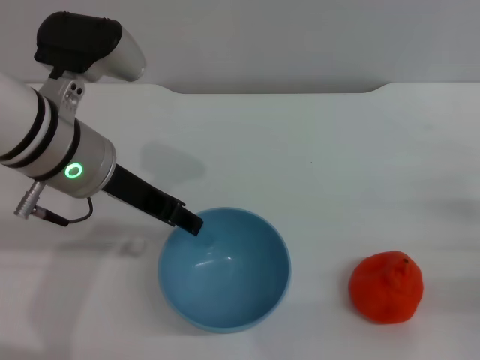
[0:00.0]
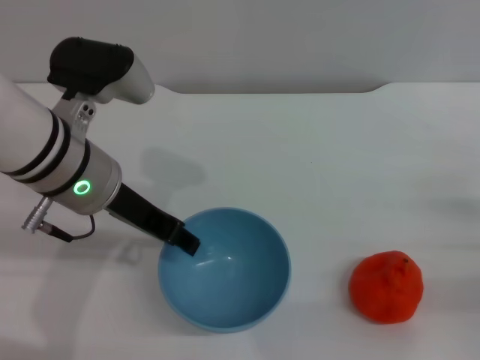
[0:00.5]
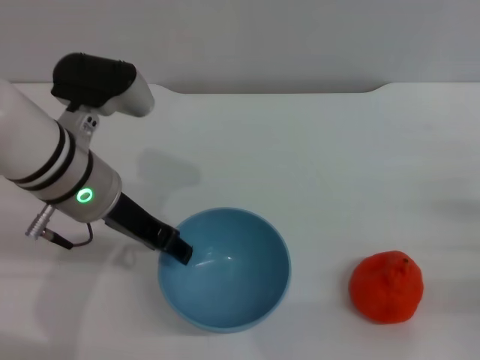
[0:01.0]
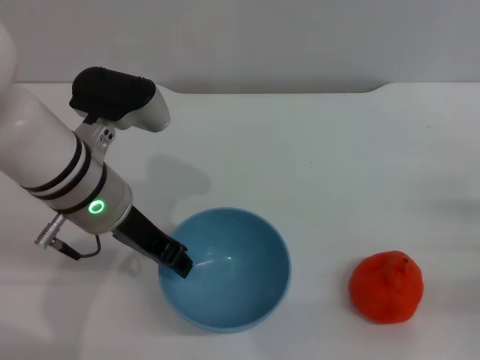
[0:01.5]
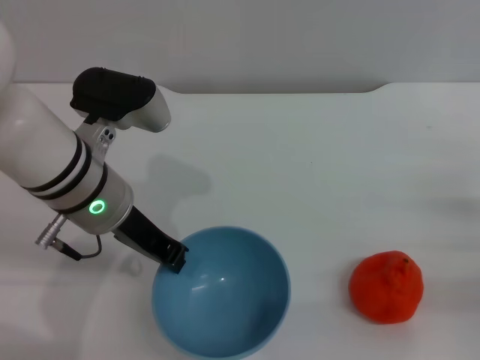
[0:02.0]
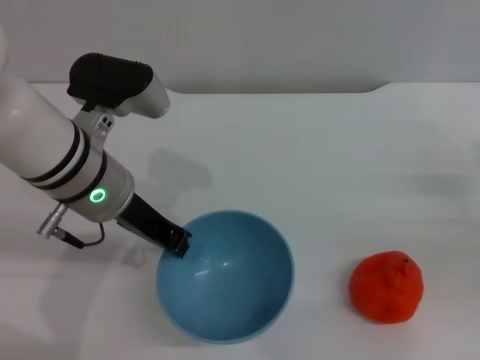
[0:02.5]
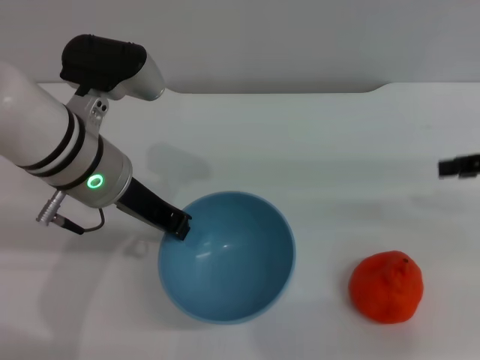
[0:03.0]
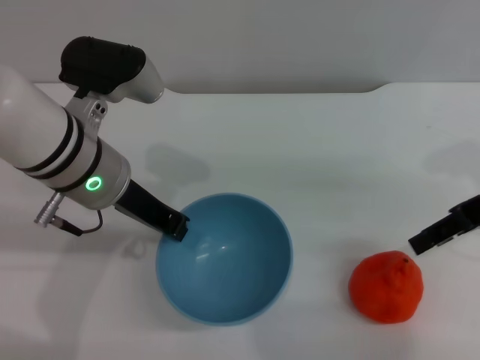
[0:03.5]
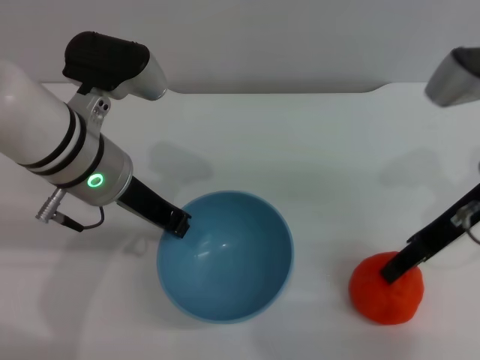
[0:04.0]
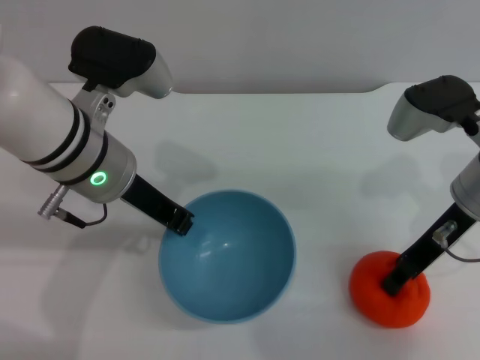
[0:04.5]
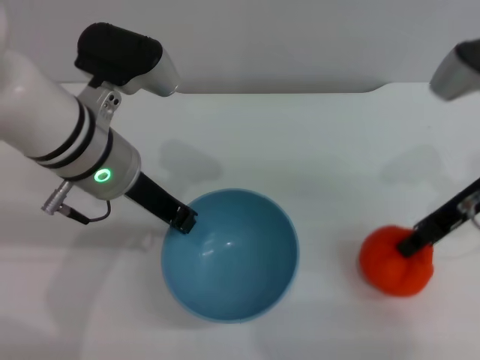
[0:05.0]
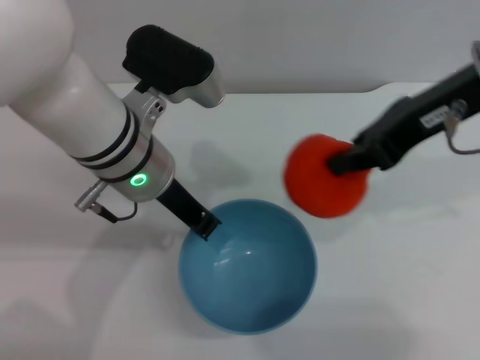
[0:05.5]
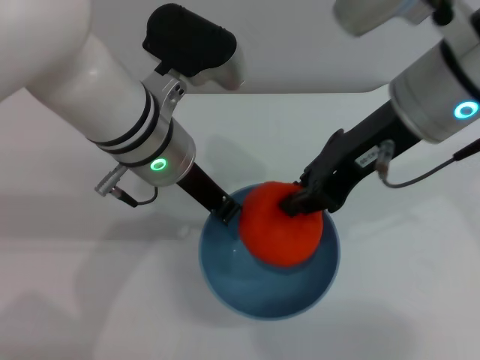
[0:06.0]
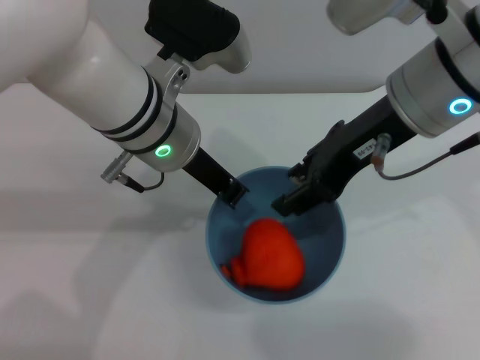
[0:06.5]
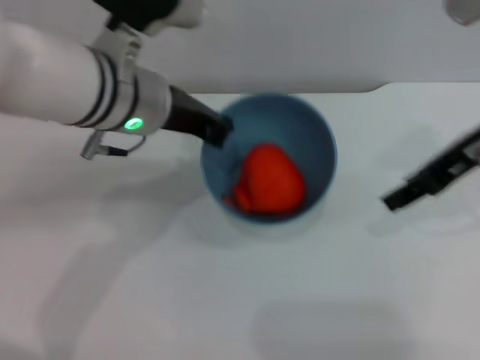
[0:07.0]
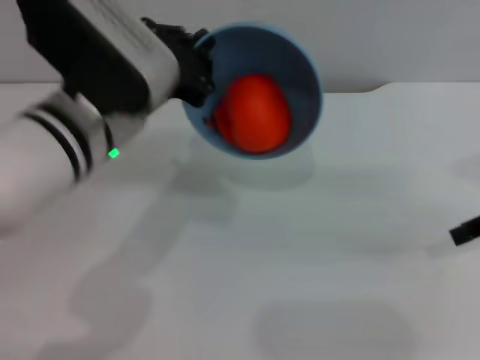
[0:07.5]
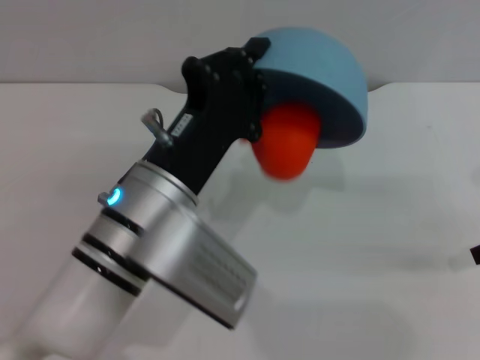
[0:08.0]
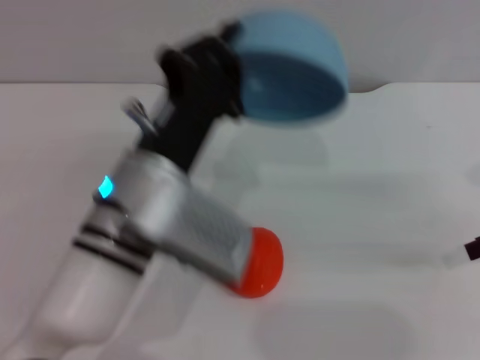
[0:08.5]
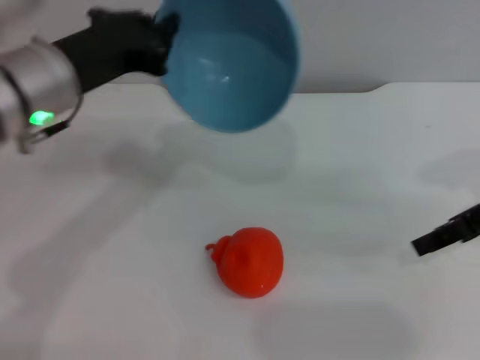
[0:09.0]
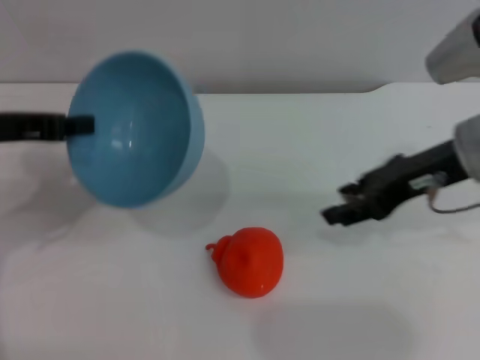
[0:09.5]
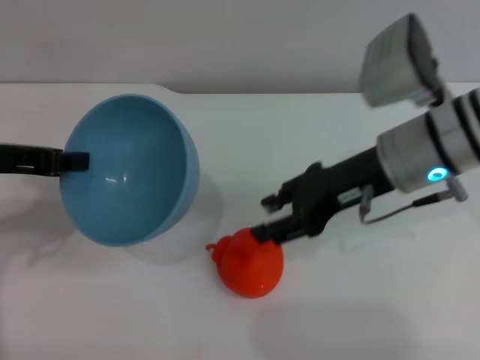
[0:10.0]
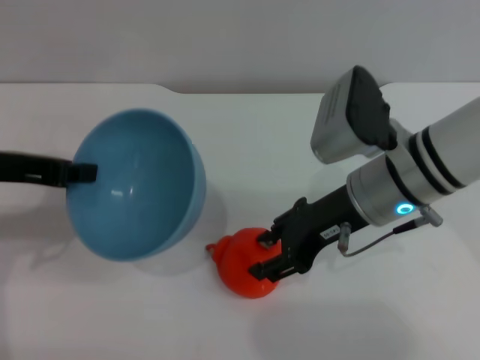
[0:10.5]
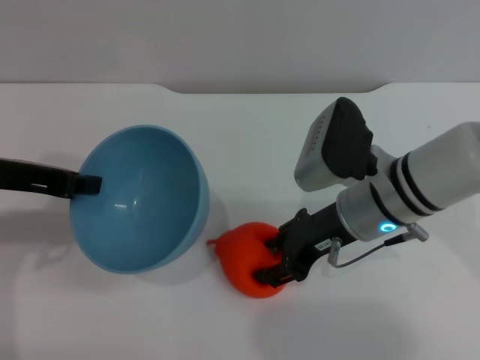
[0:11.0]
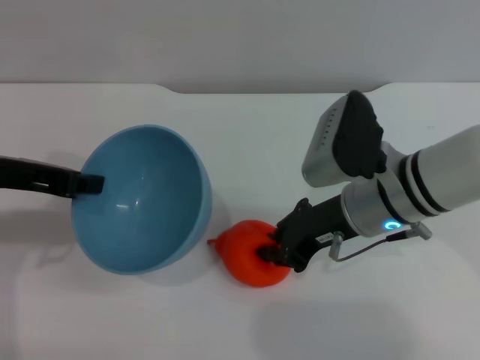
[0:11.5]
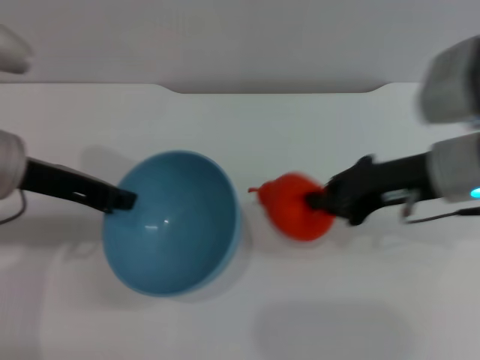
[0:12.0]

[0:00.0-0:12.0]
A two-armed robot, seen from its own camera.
Task of the whole recording: put the orange into the blue bowl and pour it out repeatedly.
Step, 0:00.0 to 0:03.0: Pick up the bowl with the left gripper.
Step, 0:03.5 to 0:05.0: Pick up the orange with the right gripper.
Step, 0:05.5 to 0:06.5: Place the orange into the bowl.
Step, 0:07.0 to 0:08.0: Pour the orange out of the bowl.
Step, 0:08.5 to 0:11.5: Pick up the orange with the right gripper.
0:00.0 to 0:02.0: The left gripper closes its fingers.
0:02.0 to 0:04.0: The right gripper travels upward, to the left and forward by some 20 cm.
0:04.0 to 0:06.0: The right gripper is displaced to the left and upward by approximately 15 cm, and closes. The left gripper travels to the right by approximately 5 cm.
0:06.0 to 0:08.0: The right gripper is displaced to the right by roughly 20 cm, and opens, while the left gripper is displaced backward and downward by approximately 10 cm.
0:08.0 to 0:10.0: Both grippers move to the left, about 20 cm.
0:10.0 to 0:12.0: The grippers both shift to the right by approximately 5 cm. The right gripper closes its fingers.

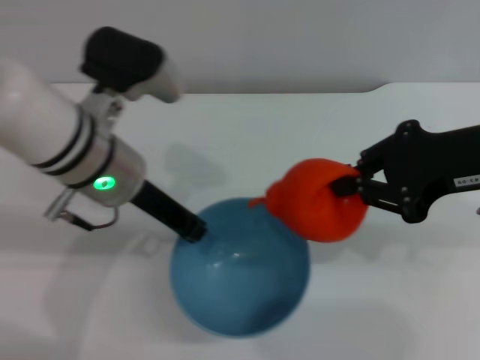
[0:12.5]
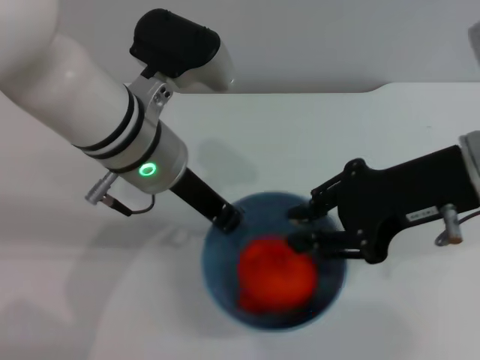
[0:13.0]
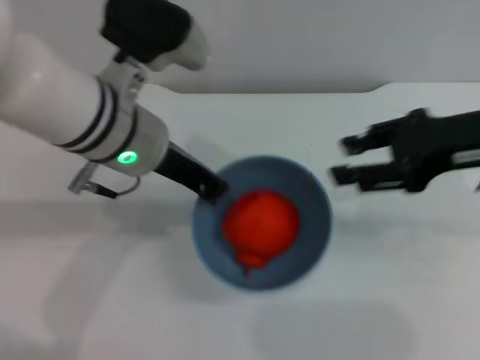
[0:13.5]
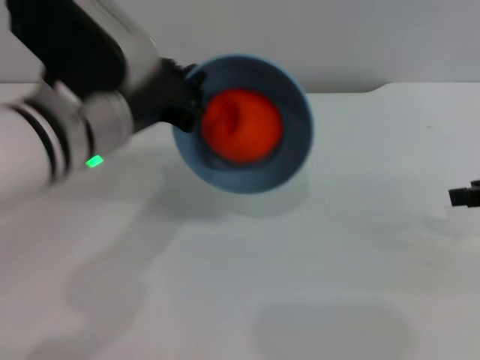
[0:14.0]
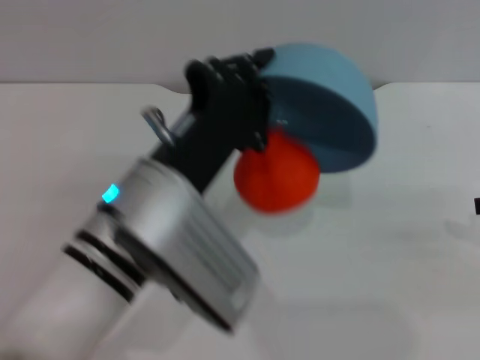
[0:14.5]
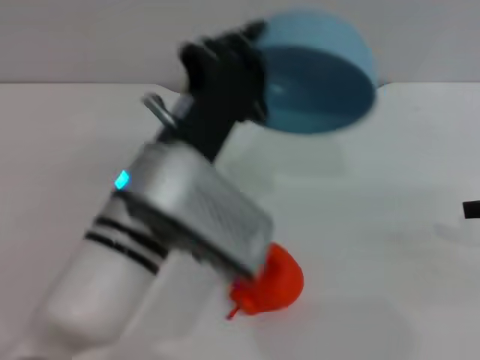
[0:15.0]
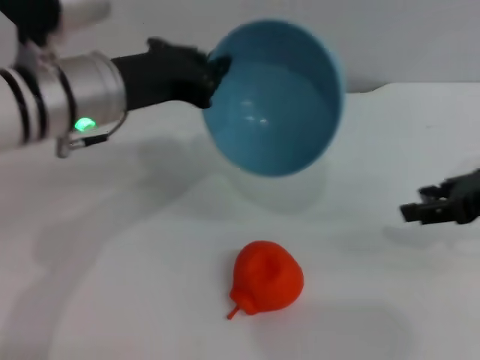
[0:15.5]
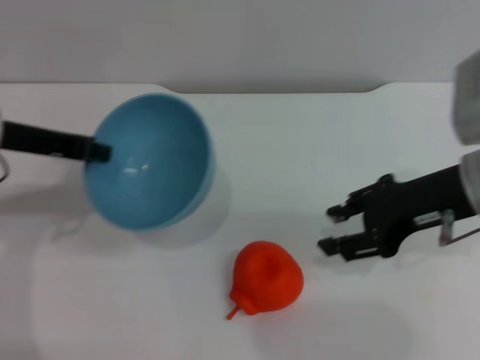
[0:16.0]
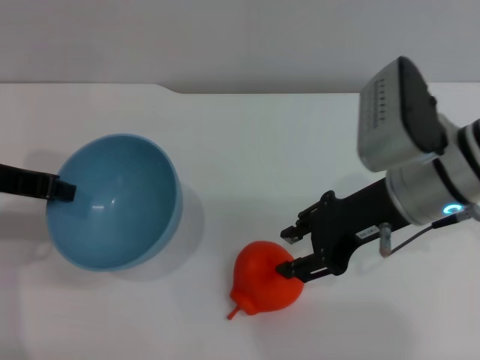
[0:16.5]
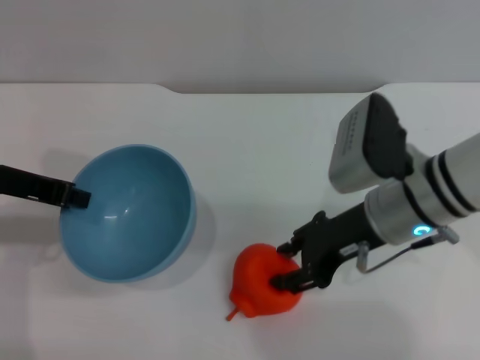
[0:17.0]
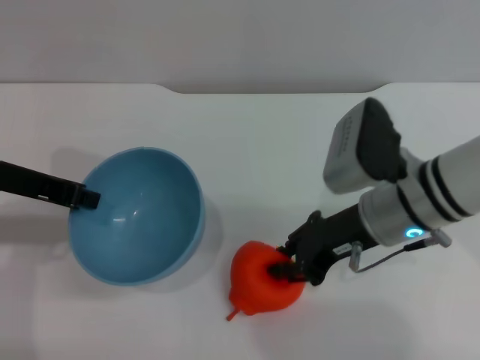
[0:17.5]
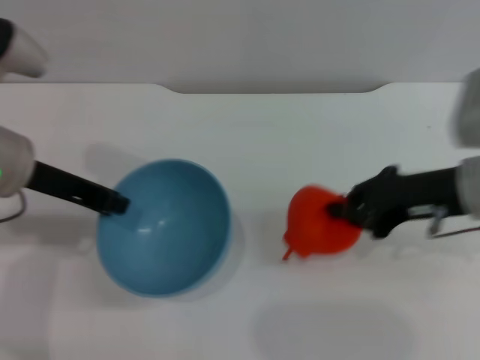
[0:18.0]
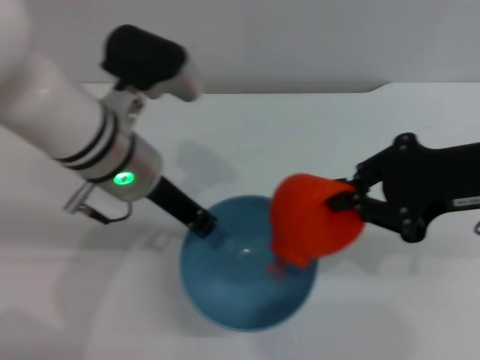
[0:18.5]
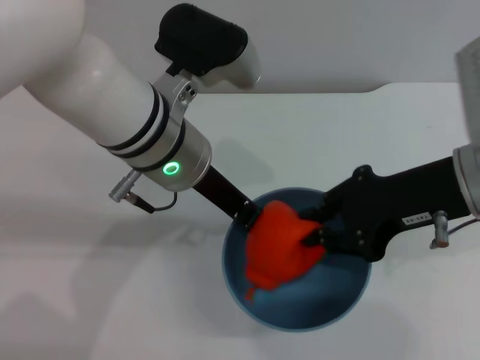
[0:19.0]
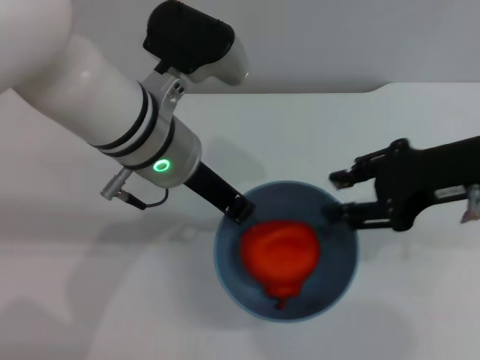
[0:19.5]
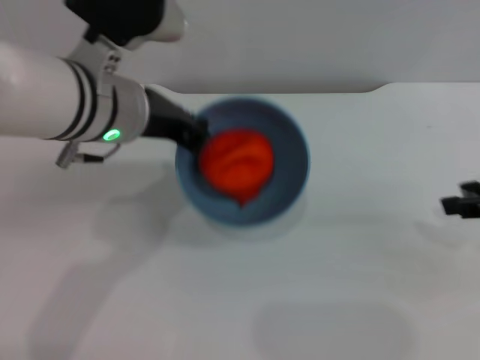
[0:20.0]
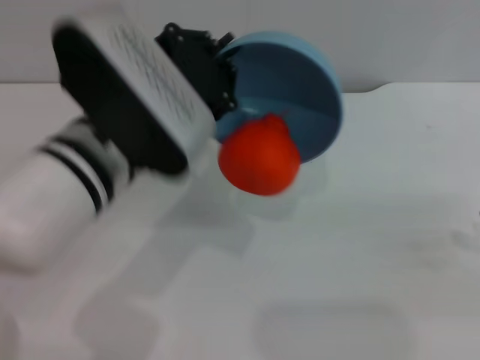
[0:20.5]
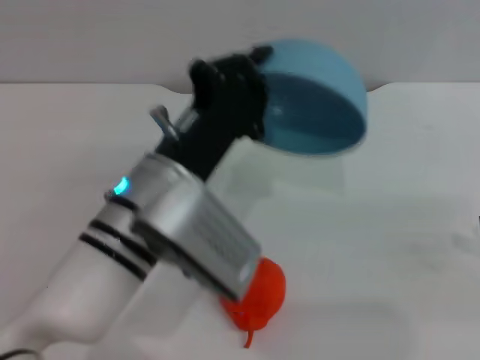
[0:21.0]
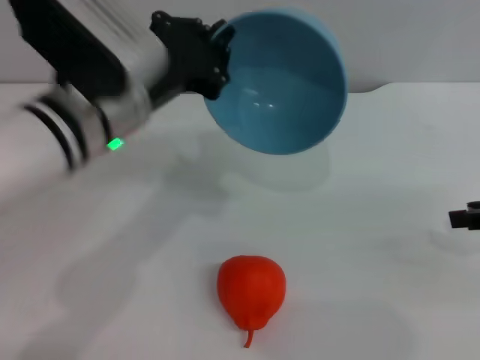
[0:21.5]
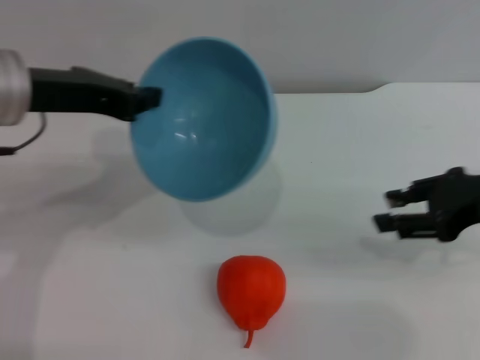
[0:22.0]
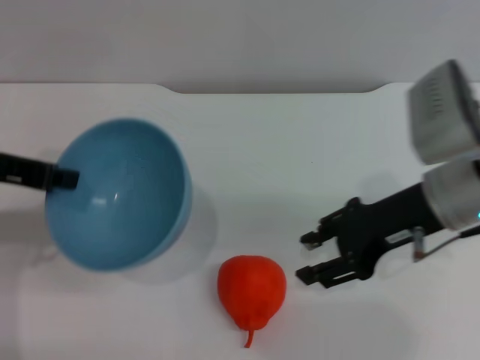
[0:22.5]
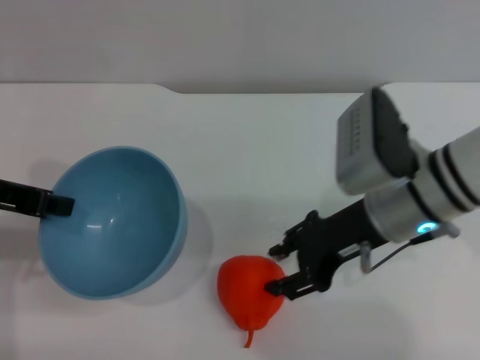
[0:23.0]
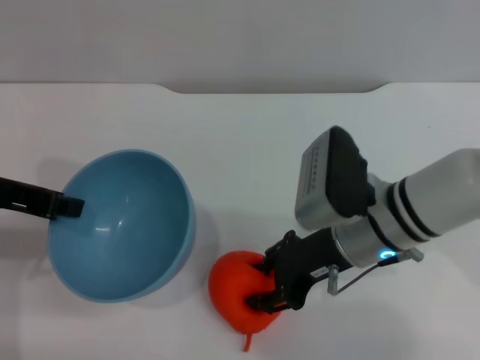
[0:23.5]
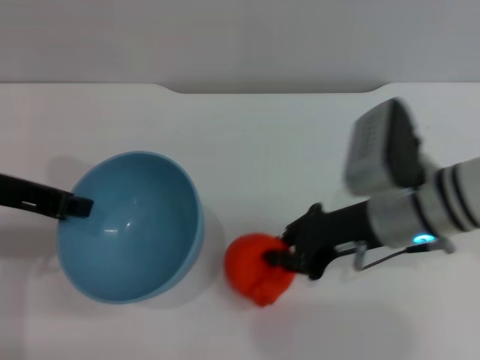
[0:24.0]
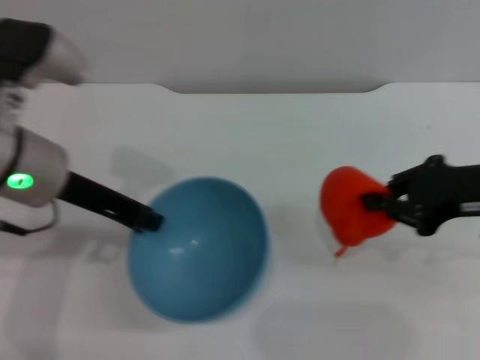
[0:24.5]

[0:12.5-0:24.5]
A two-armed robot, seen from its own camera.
Task of the whole recording: put the orange into the blue bowl and pour it out repeatedly.
Step, 0:13.0 to 0:14.5: Pour the orange out of the bowl.
Step, 0:15.0 to 0:18.0: Pick up the orange with the right gripper.
Step, 0:18.5 to 0:19.0: Place the orange into the bowl.
Step, 0:19.5 to 0:20.5: Pour the orange out of the bowl.
Step, 0:21.0 to 0:24.0: Pick up the orange with the right gripper.
0:12.5 to 0:14.5: The left gripper shifts approximately 10 cm backward, while the right gripper heads to the right and downward, covering about 15 cm, and opens up.
0:14.5 to 0:16.5: The right gripper is displaced to the left by approximately 20 cm, while the left gripper goes roughly 20 cm to the left and forward.
0:16.5 to 0:18.5: The right gripper heads to the right and upward, covering some 10 cm, and closes its fingers. The left gripper heads to the right, covering roughly 15 cm.
0:18.5 to 0:20.5: The left gripper is displaced backward by approximately 5 cm. The right gripper travels to the right by some 15 cm, and opens.
0:20.5 to 0:22.5: Both grippers travel together to the left, about 15 cm.
0:22.5 to 0:24.5: Both grippers move to the right, roughly 5 cm. The right gripper closes.

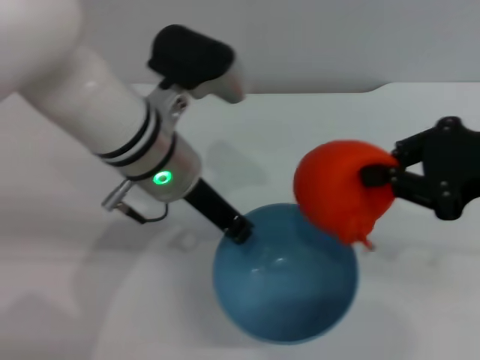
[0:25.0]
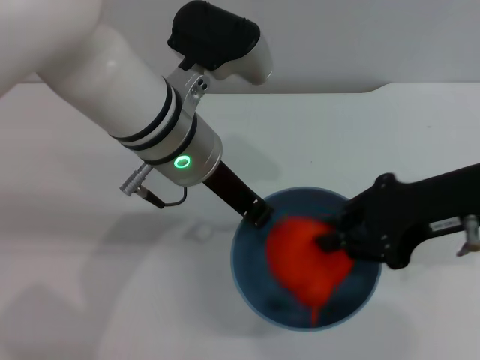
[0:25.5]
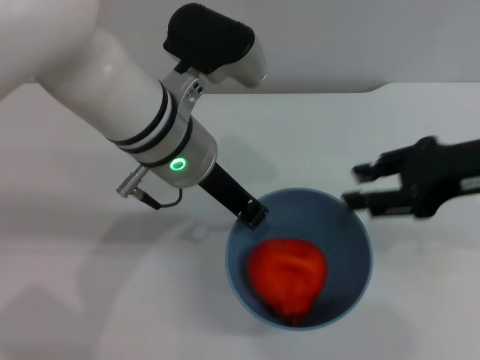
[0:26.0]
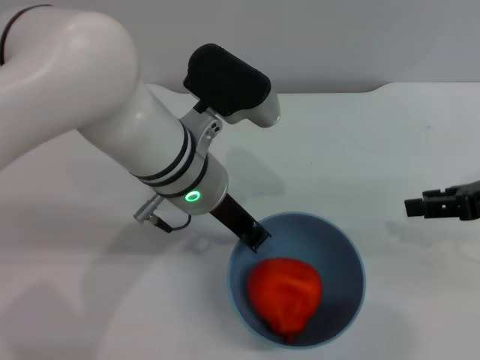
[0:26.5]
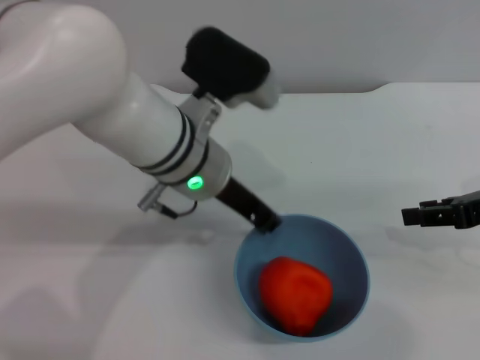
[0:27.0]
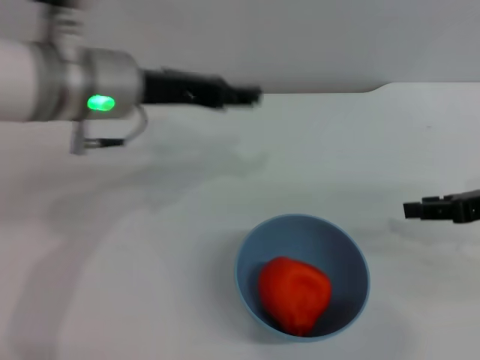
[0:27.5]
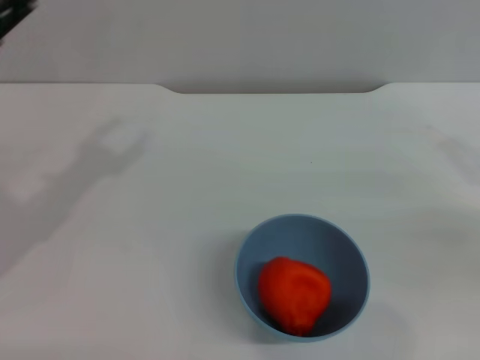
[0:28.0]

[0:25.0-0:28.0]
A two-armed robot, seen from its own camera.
Task of the whole recording: put the orange into the blue bowl and pour it out repeatedly.
Step, 0:26.0 to 0:27.0: Place the bowl on the table.
0:25.0 to 0:26.5: The right gripper goes approximately 10 cm downward and to the right, and opens.
0:26.5 to 0:28.0: The left gripper goes about 25 cm to the left, and opens up. The right gripper shifts approximately 5 cm to the right.
